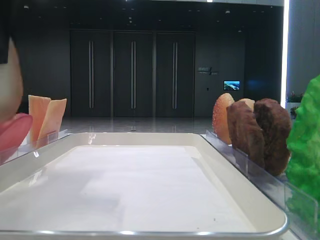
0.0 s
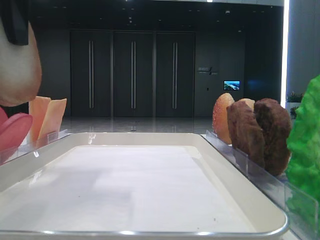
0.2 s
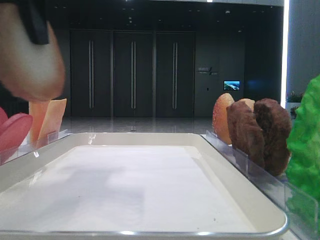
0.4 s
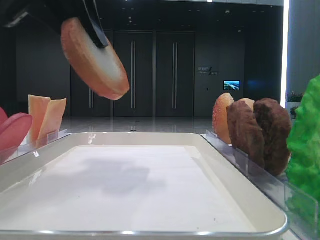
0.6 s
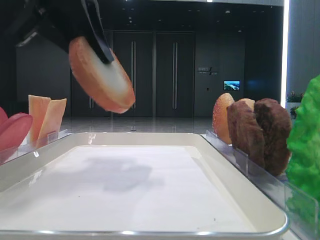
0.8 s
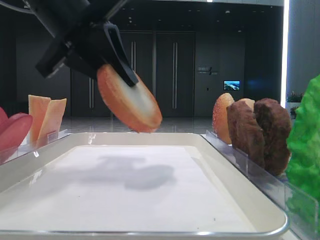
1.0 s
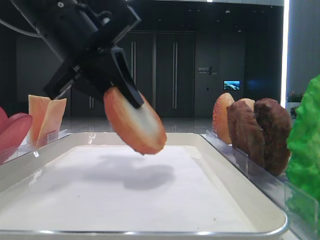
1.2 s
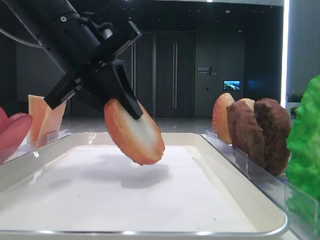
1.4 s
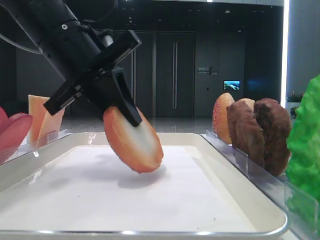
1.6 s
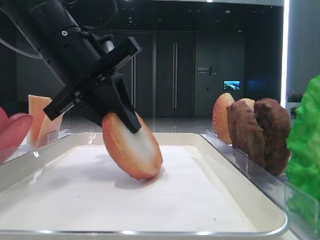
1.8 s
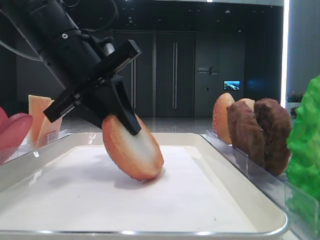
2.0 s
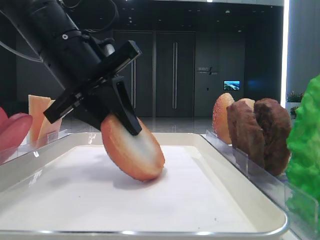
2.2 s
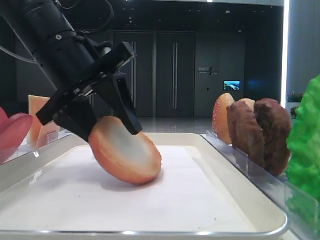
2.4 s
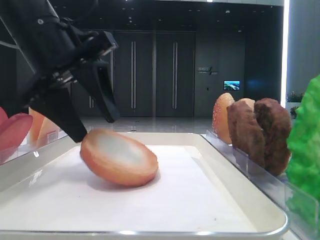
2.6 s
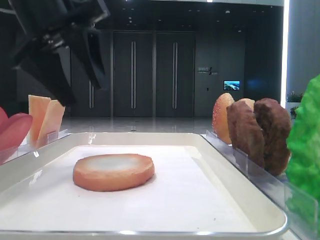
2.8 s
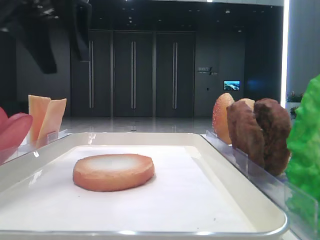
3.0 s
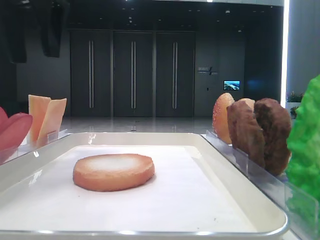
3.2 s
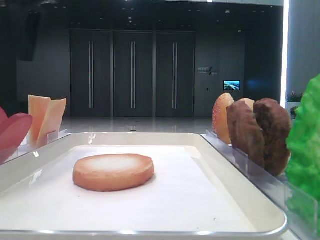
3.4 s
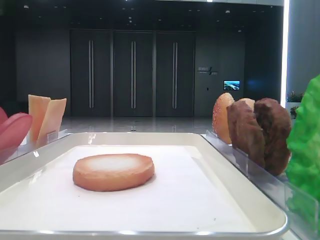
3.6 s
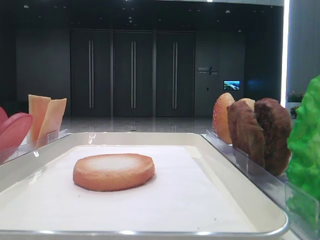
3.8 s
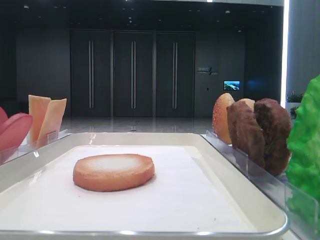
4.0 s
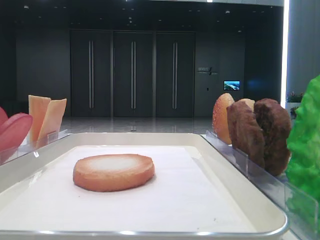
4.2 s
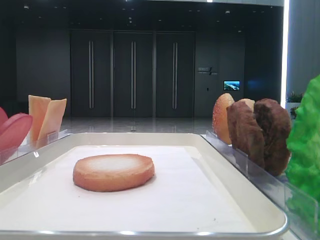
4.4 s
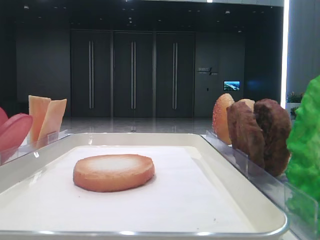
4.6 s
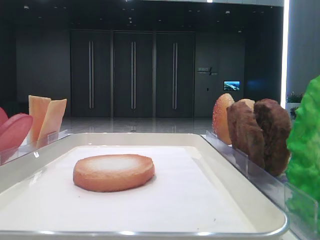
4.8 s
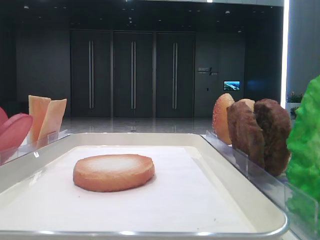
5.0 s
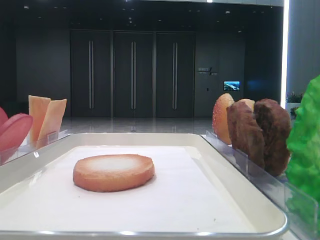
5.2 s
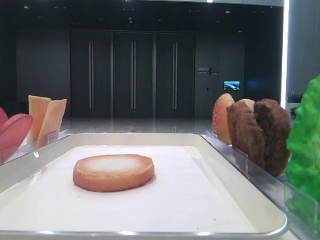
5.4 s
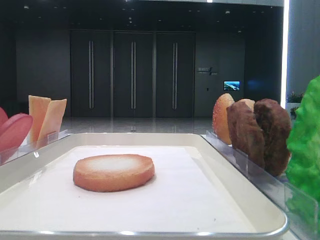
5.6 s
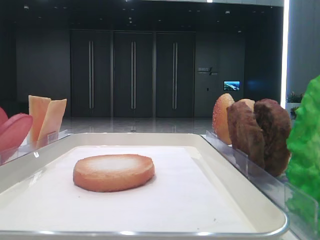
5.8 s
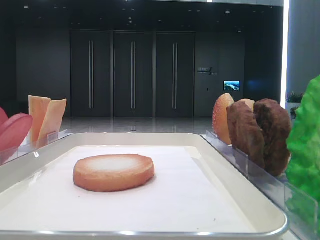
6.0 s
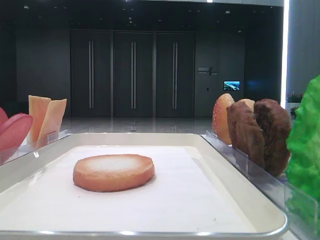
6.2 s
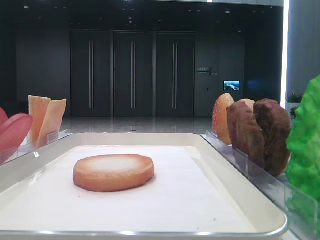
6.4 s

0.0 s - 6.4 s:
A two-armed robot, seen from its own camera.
Step, 0.0 s - 2.4 s: Place the bread on the tray with the left hand.
0.0 s - 1.6 s: The left gripper shifts about 15 cm downward and forward.
1.6 s - 3.2 s: The left gripper shifts some 15 cm upward and to the left, and opens.
3.2 s - 4.8 s: The left gripper shifts about 35 cm backward and to the left.

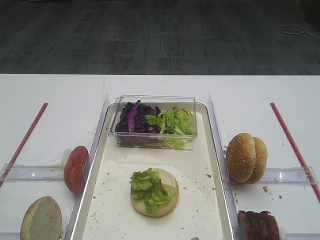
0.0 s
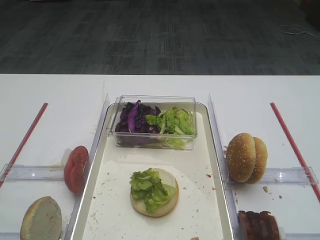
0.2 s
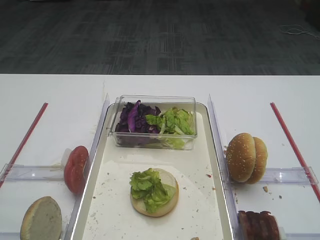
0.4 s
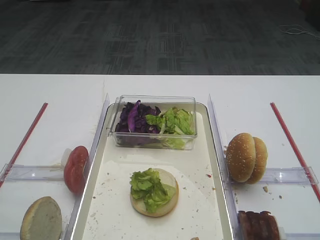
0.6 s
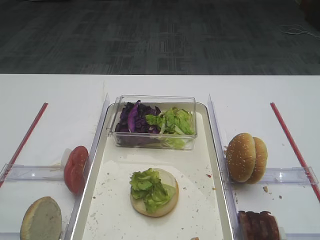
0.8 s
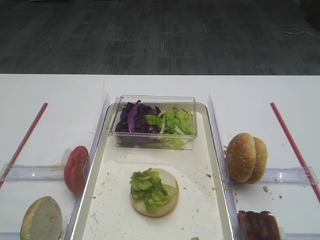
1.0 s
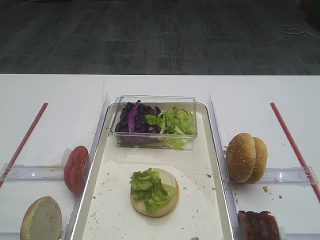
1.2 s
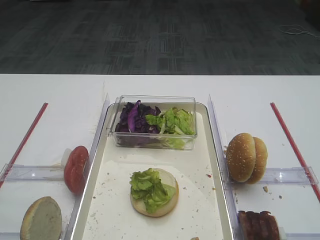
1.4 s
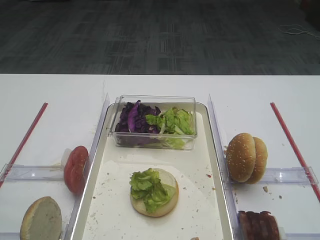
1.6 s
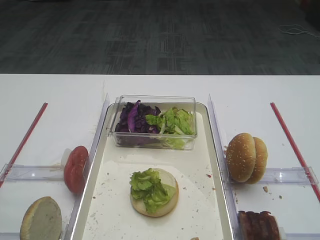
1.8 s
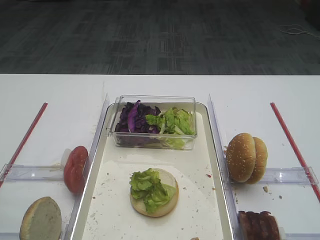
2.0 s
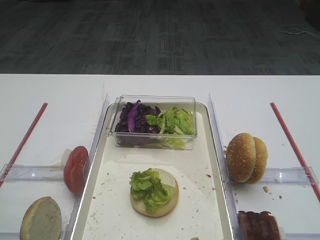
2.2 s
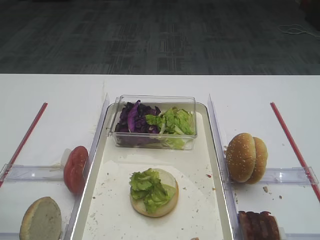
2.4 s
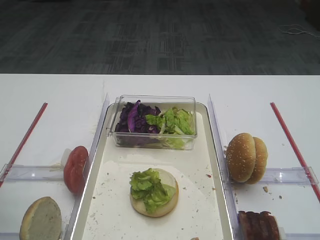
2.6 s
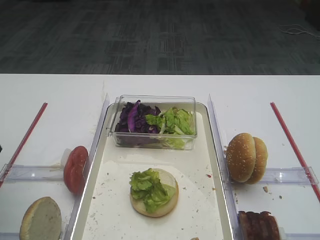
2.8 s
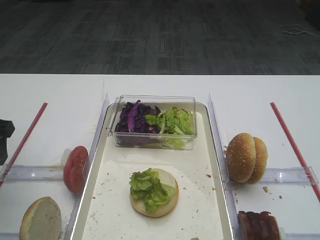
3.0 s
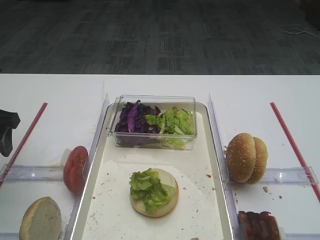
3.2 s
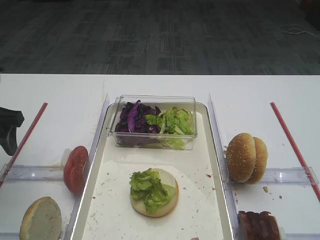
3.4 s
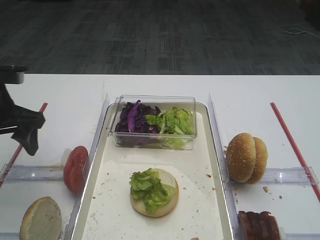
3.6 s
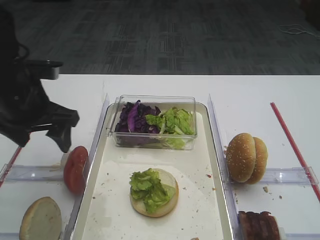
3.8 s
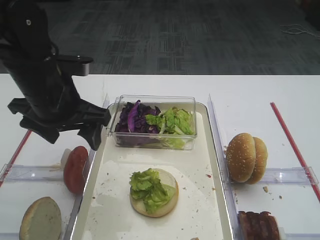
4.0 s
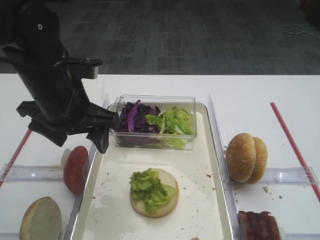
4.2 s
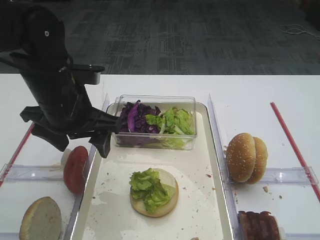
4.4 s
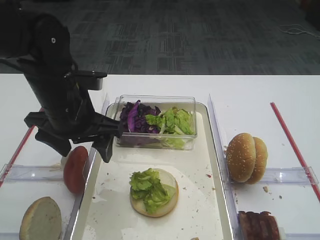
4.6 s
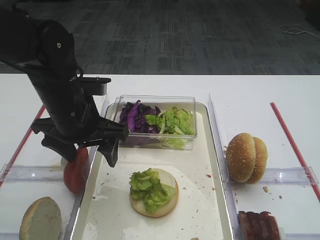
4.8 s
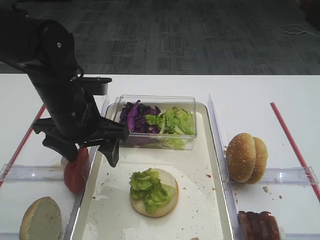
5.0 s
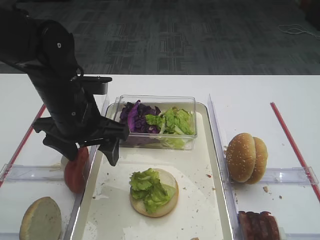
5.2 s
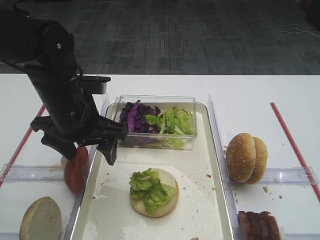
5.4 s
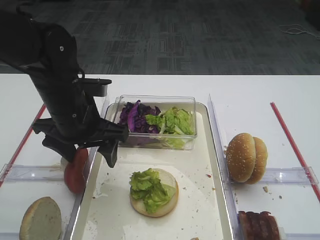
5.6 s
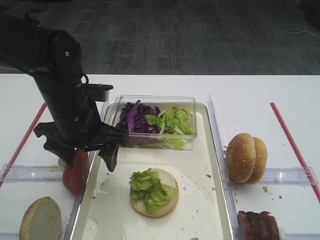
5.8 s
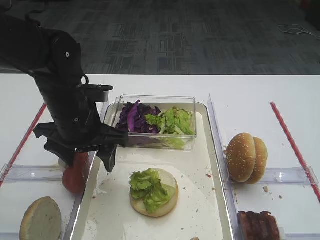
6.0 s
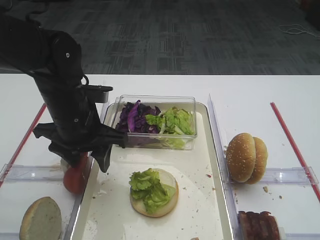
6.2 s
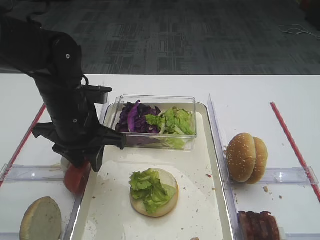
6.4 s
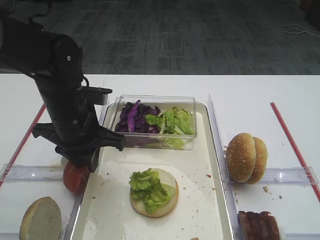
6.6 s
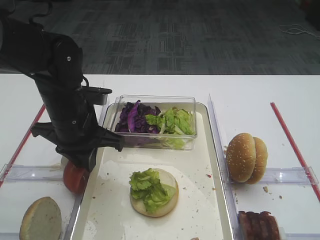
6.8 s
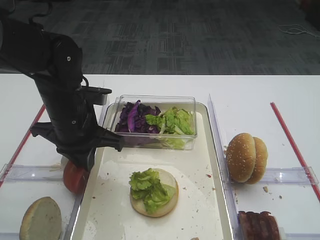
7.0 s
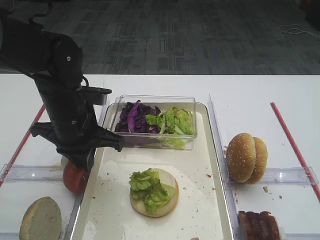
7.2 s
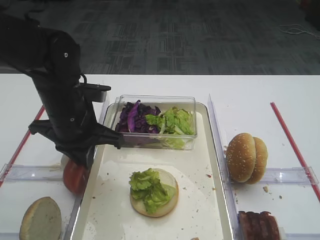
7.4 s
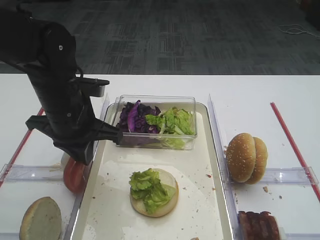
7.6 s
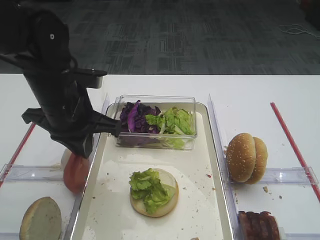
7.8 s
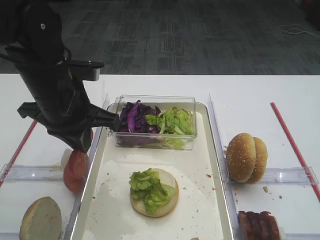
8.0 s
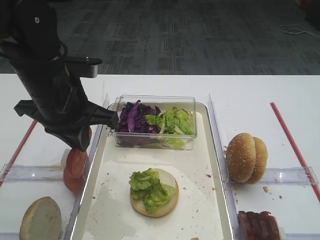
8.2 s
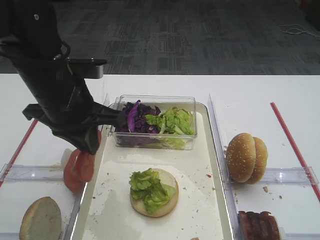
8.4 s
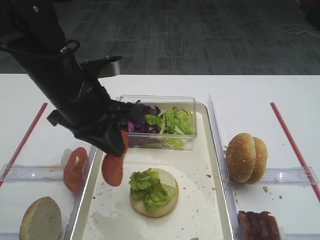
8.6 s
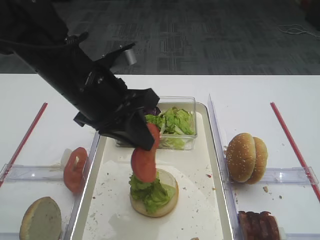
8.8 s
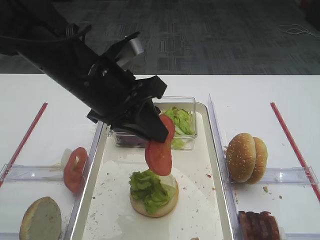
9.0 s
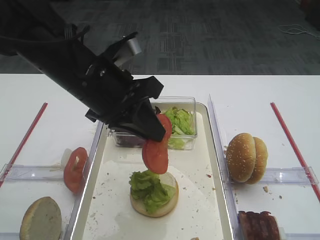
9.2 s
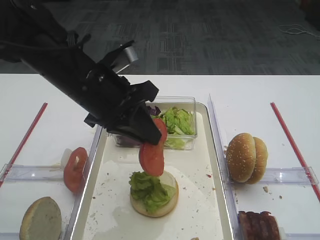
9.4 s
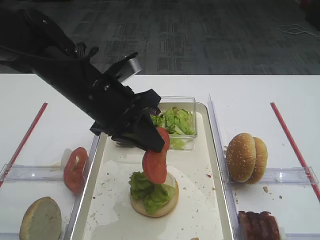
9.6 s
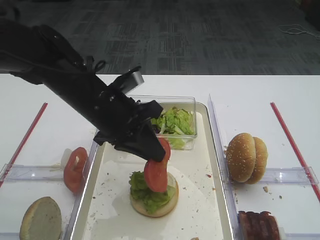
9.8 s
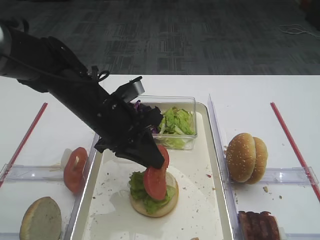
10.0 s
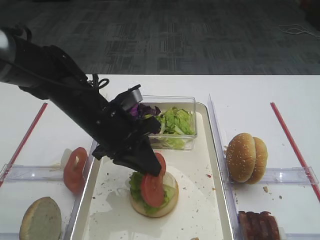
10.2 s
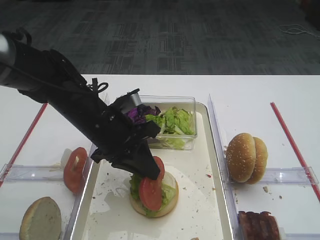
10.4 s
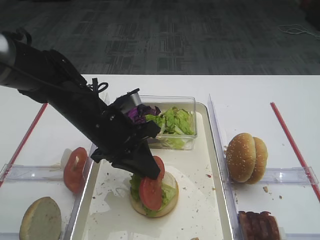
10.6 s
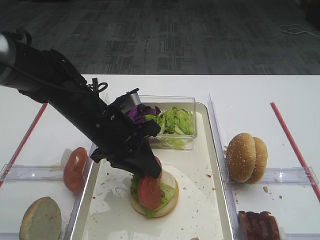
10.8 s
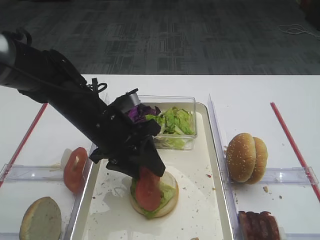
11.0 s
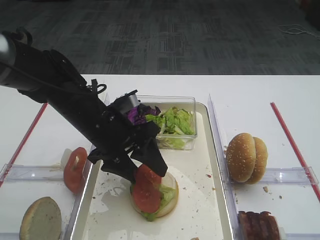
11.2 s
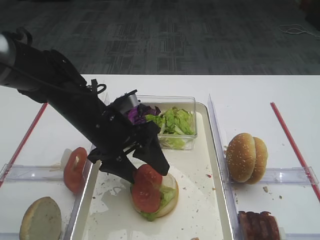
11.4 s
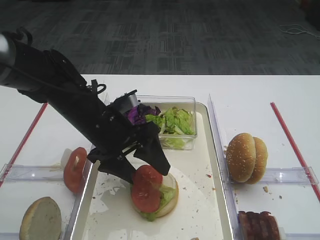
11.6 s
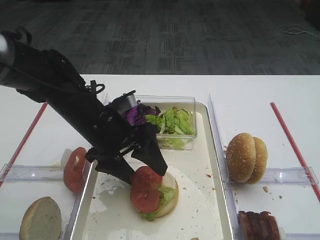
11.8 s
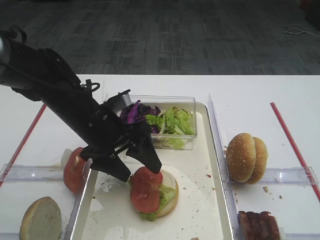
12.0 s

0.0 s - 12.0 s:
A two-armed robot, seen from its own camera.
Step, 0.0 s - 8.2 s: Pick up the tomato slice with the left gripper.
1.6 s - 3.0 s: The left gripper goes some 20 cm forward.
3.0 s - 4.4 s: The left gripper heads to the right, covering approximately 15 cm.
4.4 s - 6.0 s: There are only small adjustments of the grippers.
6.0 s - 7.6 s: The left gripper closes up.
7.6 s - 9.0 s: The left gripper shifts approximately 5 cm upward.
9.0 s - 10.4 s: The left gripper heads downward, covering approximately 10 cm.
10.4 s - 12.0 s: The left gripper opens.

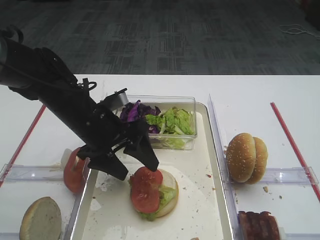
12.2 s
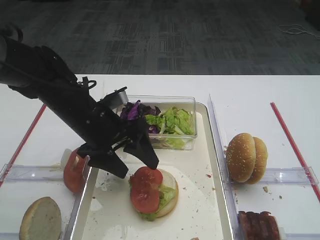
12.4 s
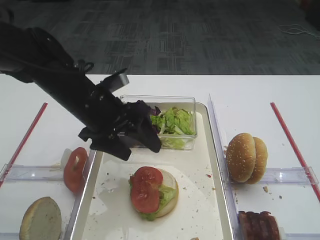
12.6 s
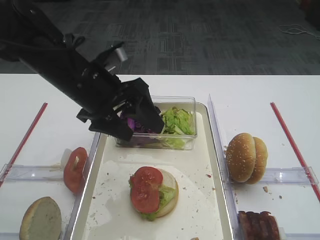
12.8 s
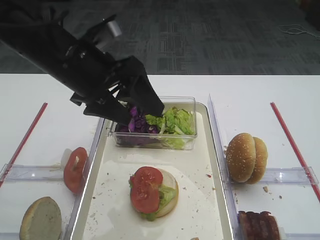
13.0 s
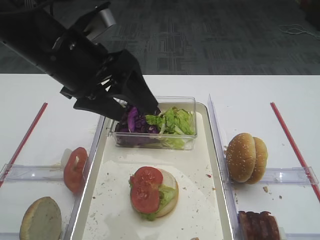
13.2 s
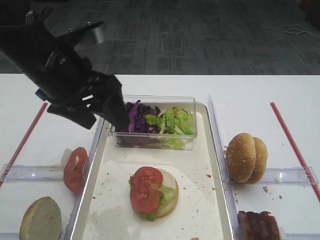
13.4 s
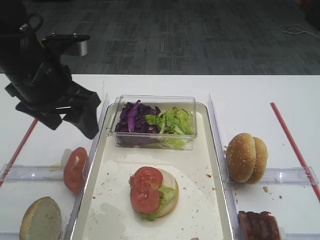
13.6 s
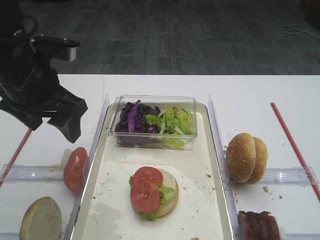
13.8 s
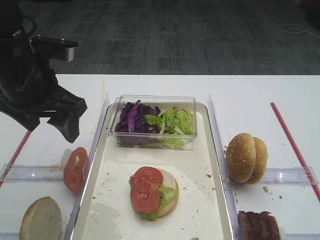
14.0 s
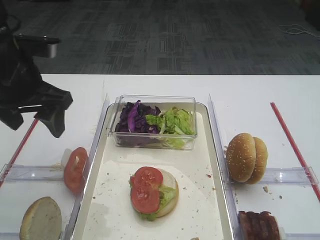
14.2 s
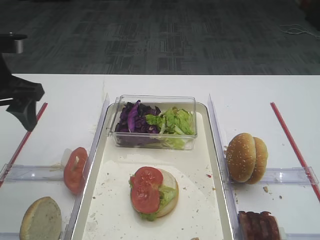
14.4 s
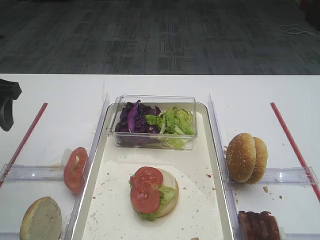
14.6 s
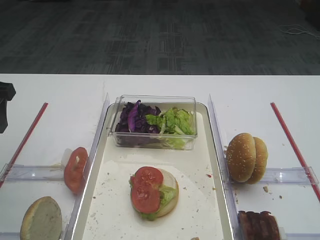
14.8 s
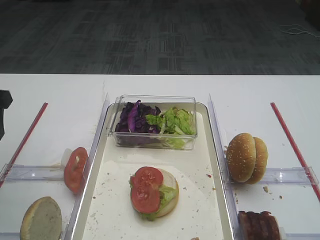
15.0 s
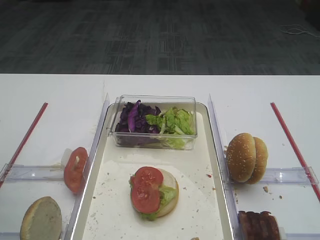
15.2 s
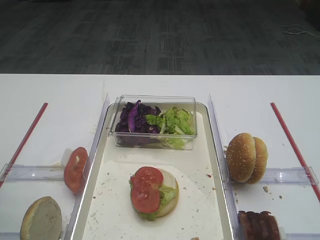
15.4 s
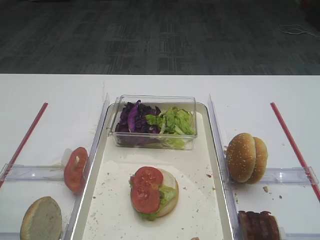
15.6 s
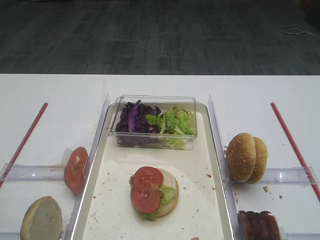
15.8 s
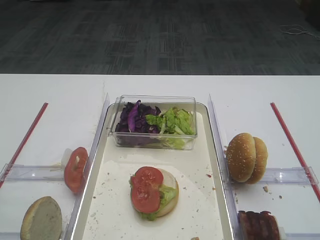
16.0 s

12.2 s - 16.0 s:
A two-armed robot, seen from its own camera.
12.2 s - 13.4 s: The left gripper shifts about 10 cm upward.
13.4 s - 14.8 s: The left gripper moves to the left, some 15 cm.
14.8 s - 16.0 s: The left gripper heads backward, covering approximately 20 cm.
